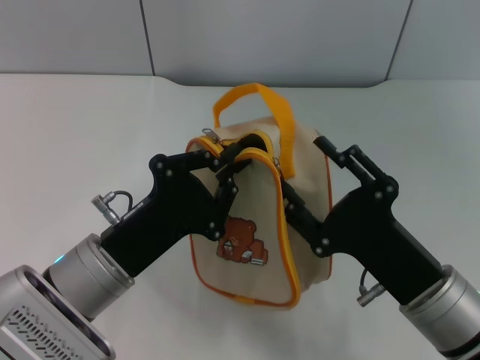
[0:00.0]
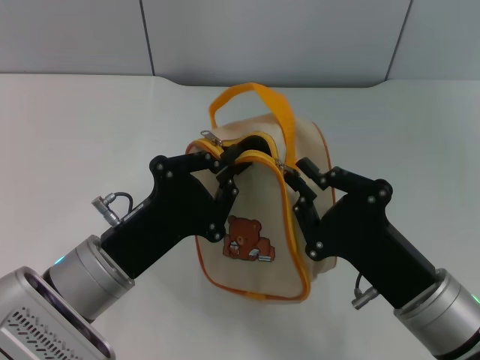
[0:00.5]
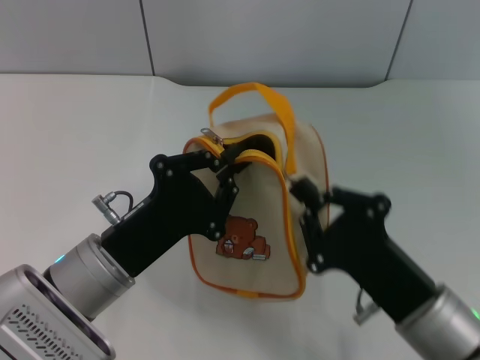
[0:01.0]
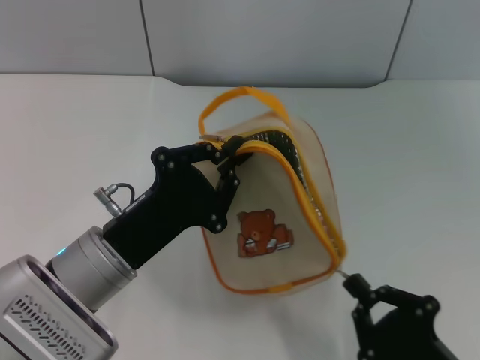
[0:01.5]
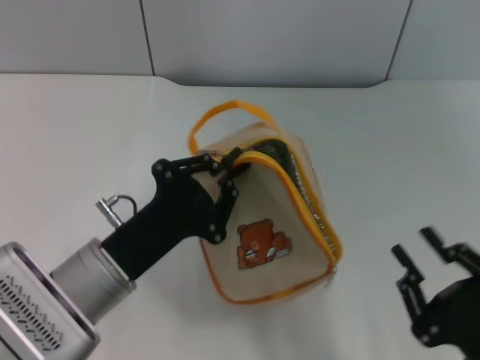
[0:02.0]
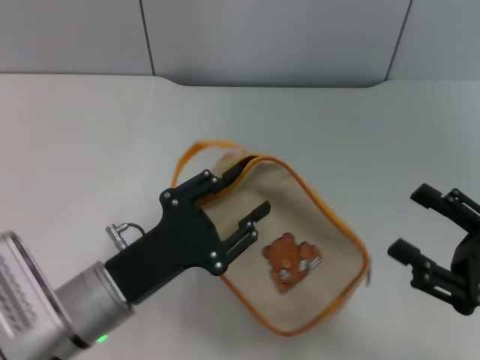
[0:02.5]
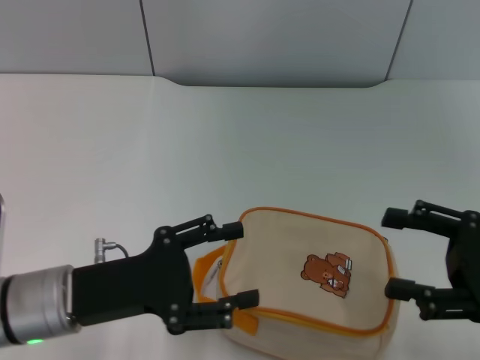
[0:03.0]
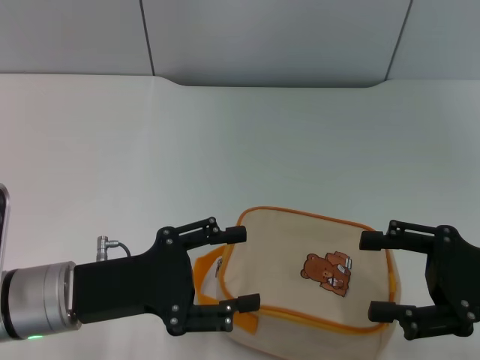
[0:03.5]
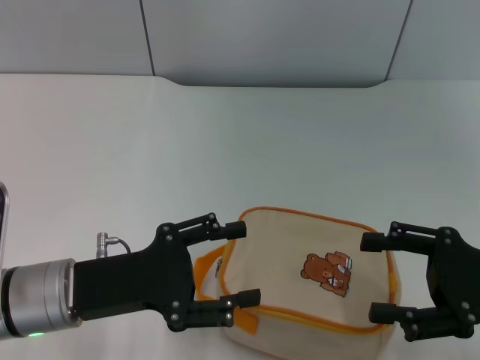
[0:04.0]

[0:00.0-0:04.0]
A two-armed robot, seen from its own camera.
0:00.0 to 0:02.0: The right gripper moves backward and to the right, some 10 cm, and closes its fingers.
0:02.0 to 0:04.0: The right gripper heads forward, upward and to the right, covering about 15 cm, and opens, while the left gripper opens its fingers.

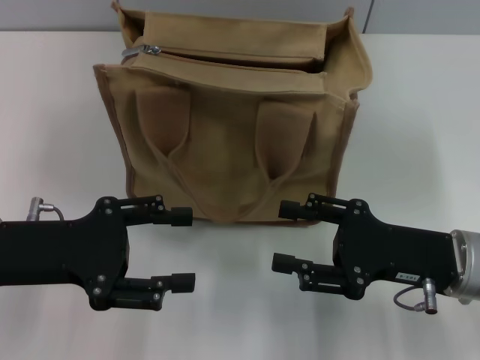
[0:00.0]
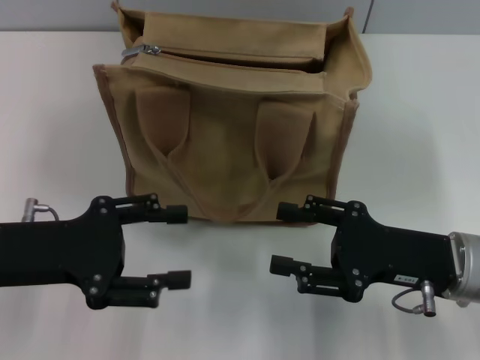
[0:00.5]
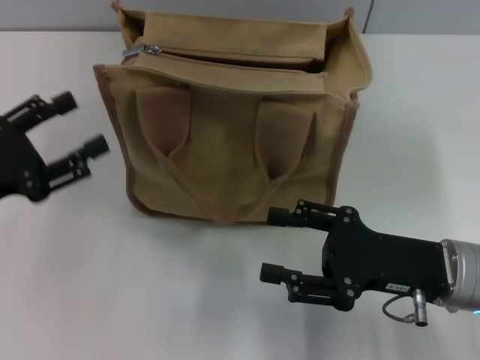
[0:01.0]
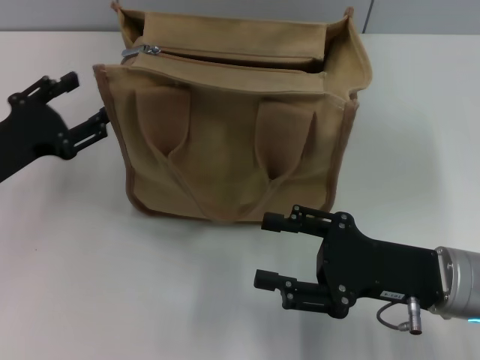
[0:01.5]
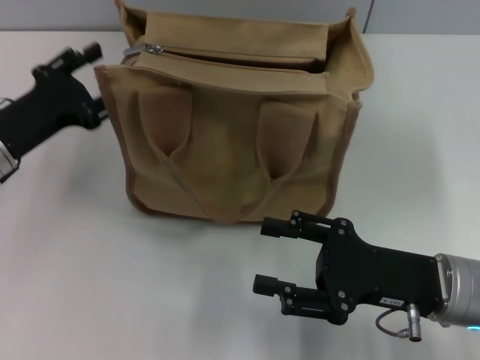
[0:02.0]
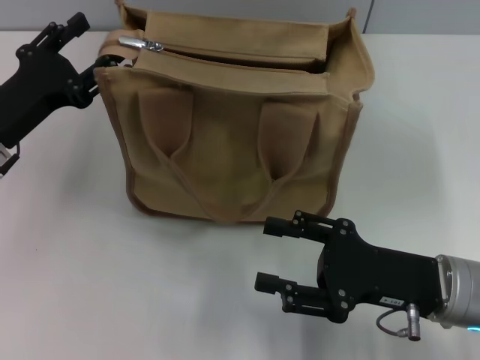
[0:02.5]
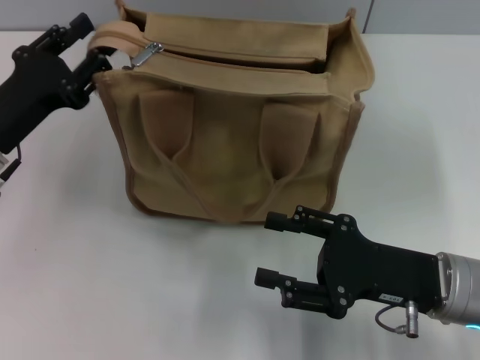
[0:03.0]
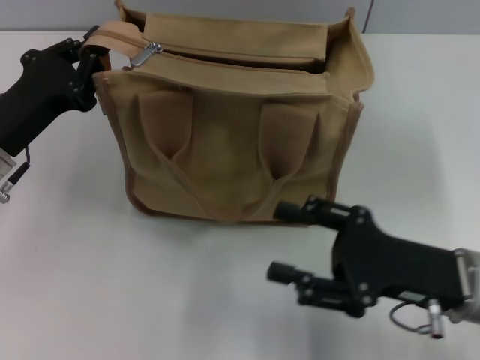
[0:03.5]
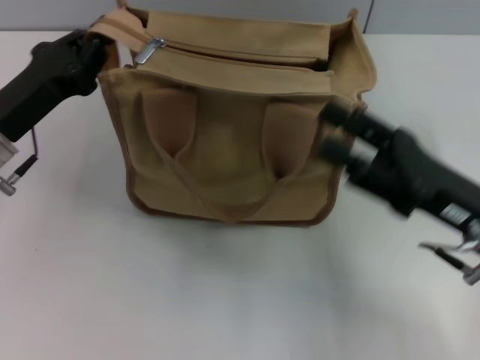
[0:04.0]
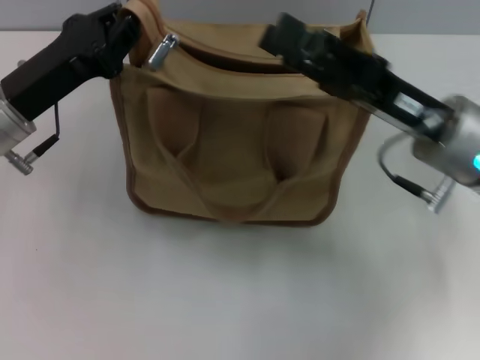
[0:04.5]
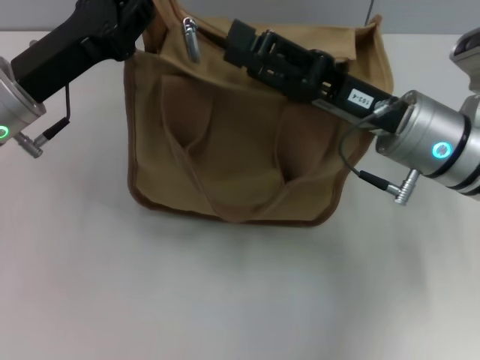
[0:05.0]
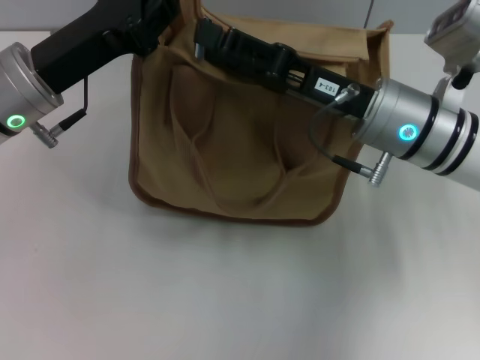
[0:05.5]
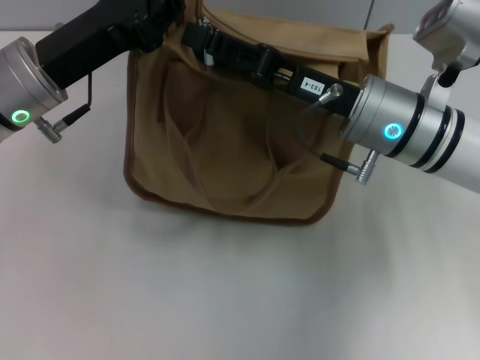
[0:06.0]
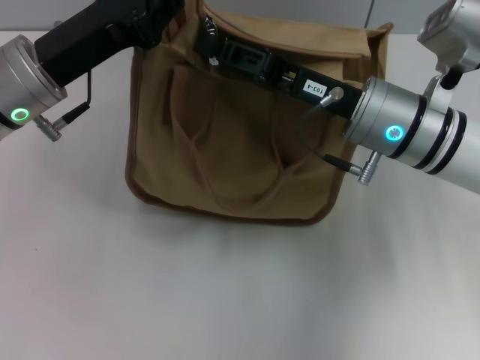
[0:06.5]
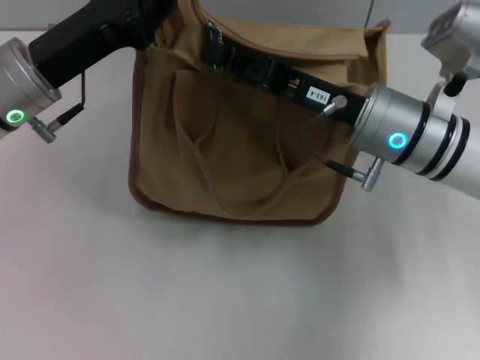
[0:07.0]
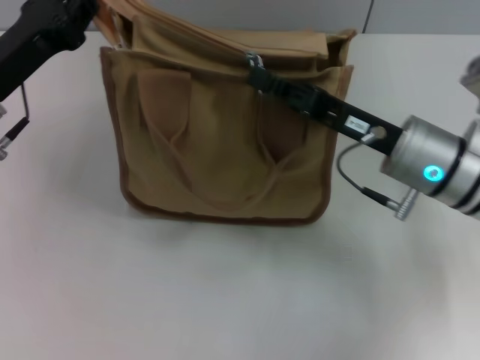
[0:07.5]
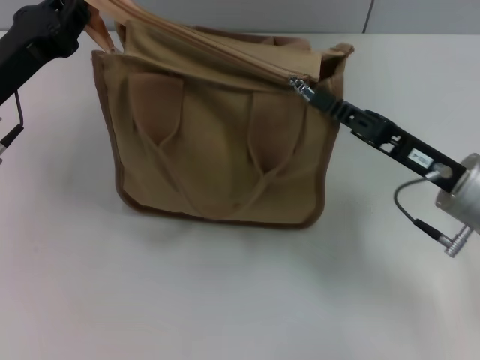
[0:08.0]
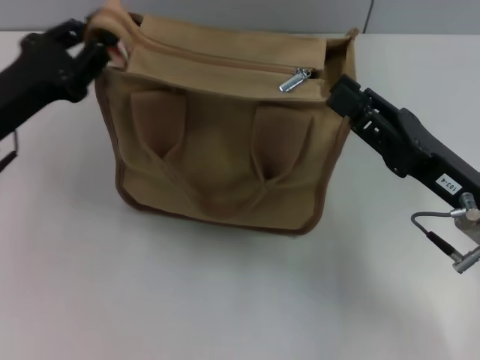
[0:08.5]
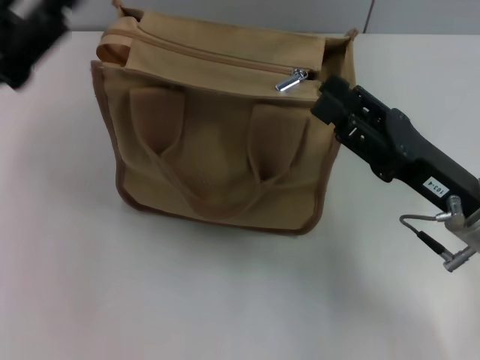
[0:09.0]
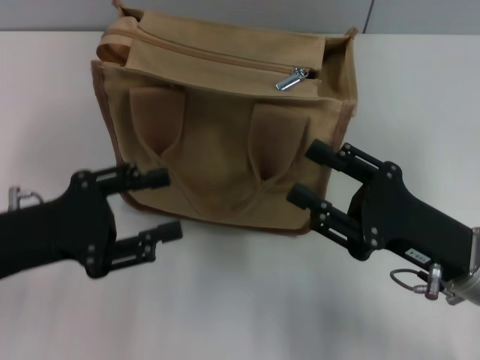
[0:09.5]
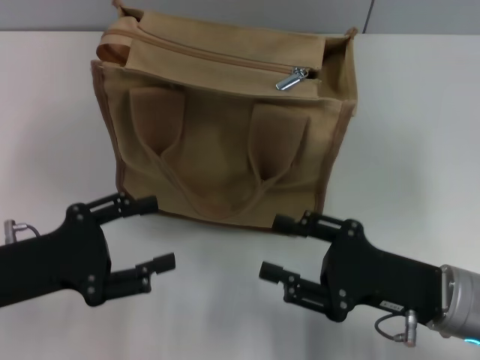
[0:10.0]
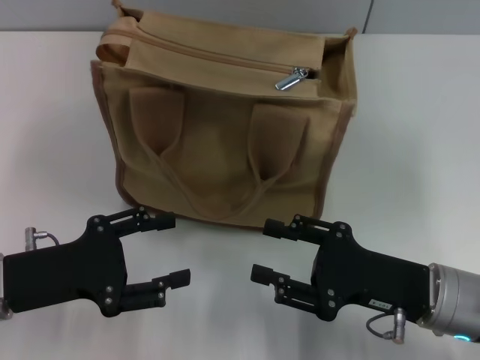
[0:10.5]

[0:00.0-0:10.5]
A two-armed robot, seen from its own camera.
Step, 0:00.0 to 0:08.0: Pull up the zipper with your right hand.
0:00.0 to 0:02.0: The left gripper moves forward, some 5 cm.
0:02.0 to 0:04.0: The left gripper closes its fingers.
0:04.0 to 0:06.5: The left gripper shifts by roughly 10 cm; the right gripper shifts approximately 15 cm forward and to the left, and closes its fingers.
0:06.5 to 0:08.5: The left gripper heads to the left, covering approximately 5 cm; the right gripper moves backward and to the right, roughly 10 cm.
0:08.5 to 0:10.5: The right gripper ends up some 5 cm from where it was, and opens. Meanwhile the left gripper heads backward, covering roughly 10 cm, and opens its fingers.

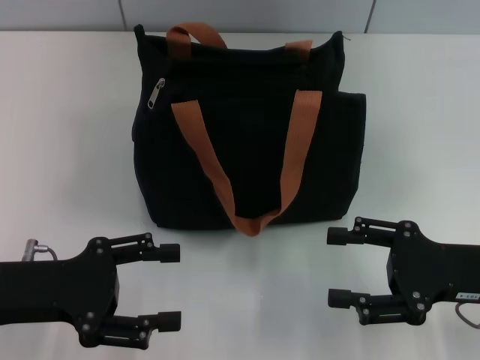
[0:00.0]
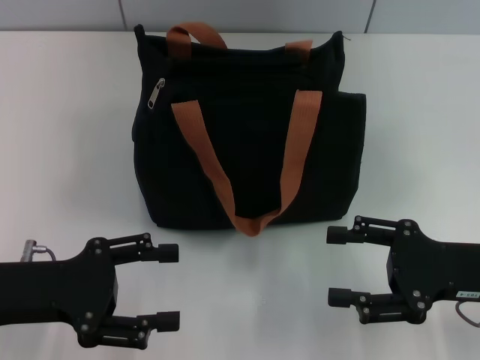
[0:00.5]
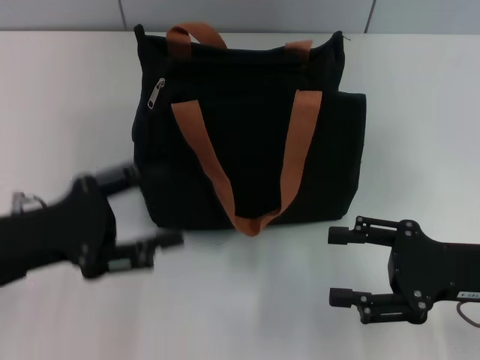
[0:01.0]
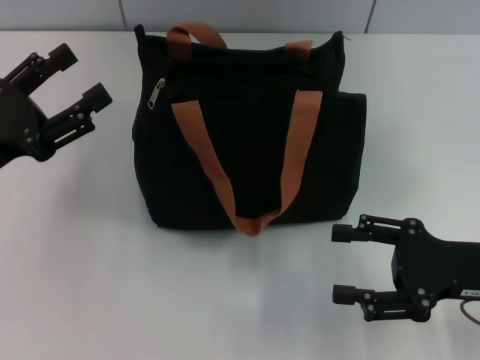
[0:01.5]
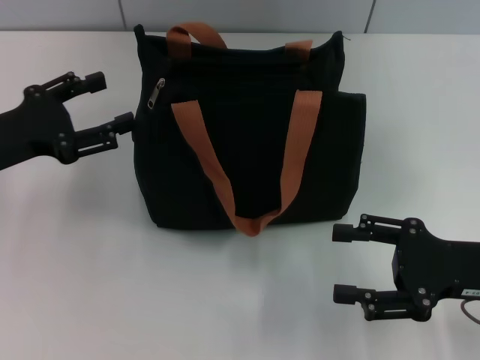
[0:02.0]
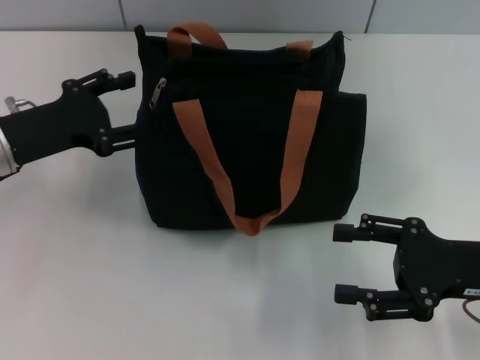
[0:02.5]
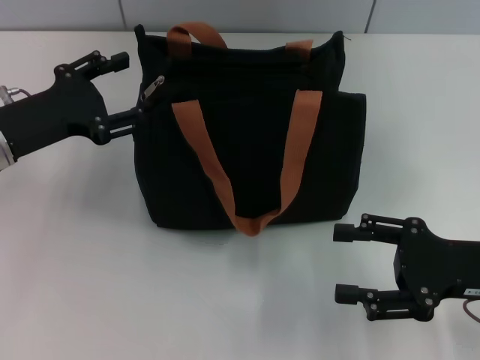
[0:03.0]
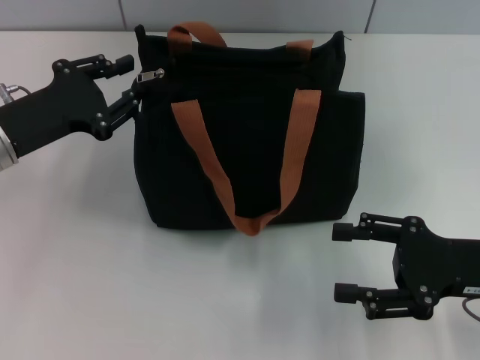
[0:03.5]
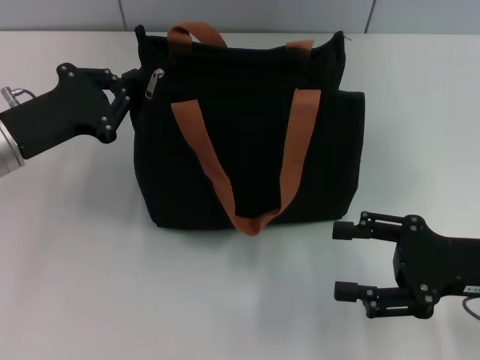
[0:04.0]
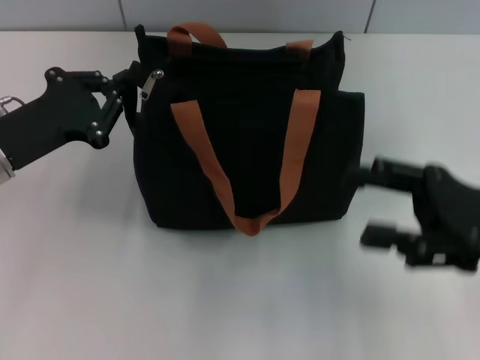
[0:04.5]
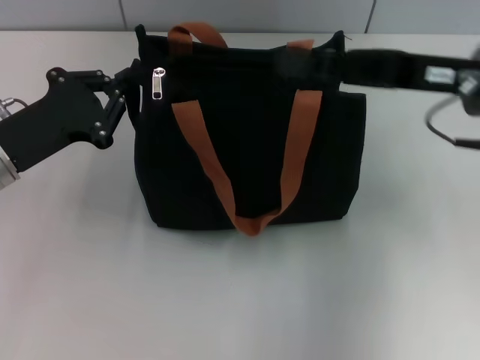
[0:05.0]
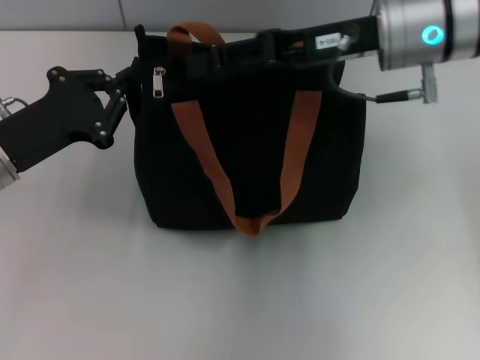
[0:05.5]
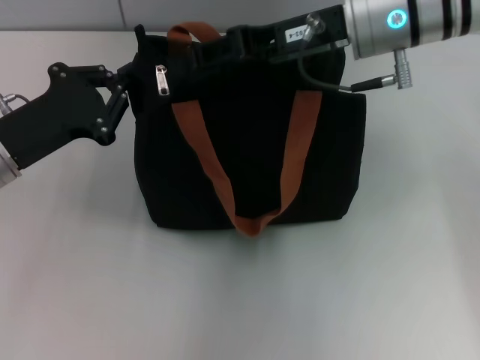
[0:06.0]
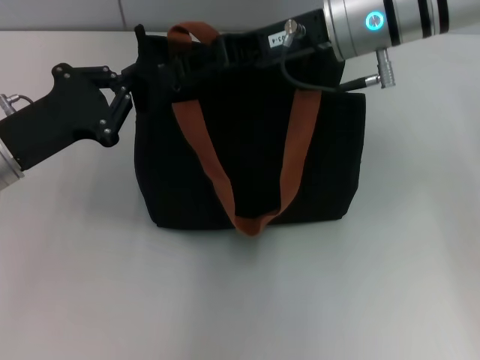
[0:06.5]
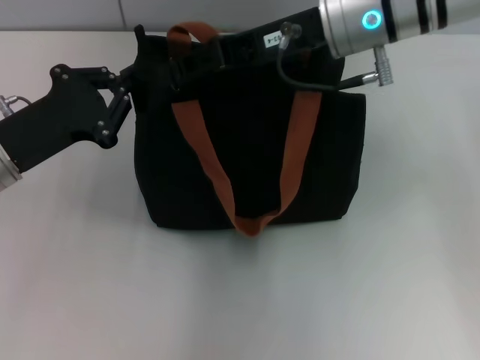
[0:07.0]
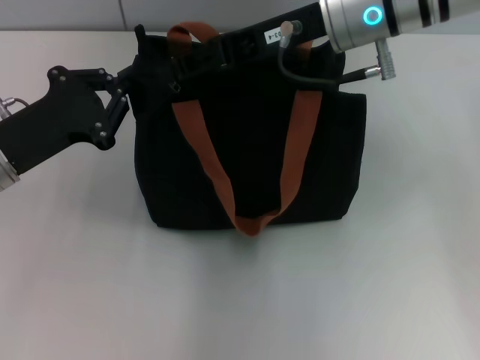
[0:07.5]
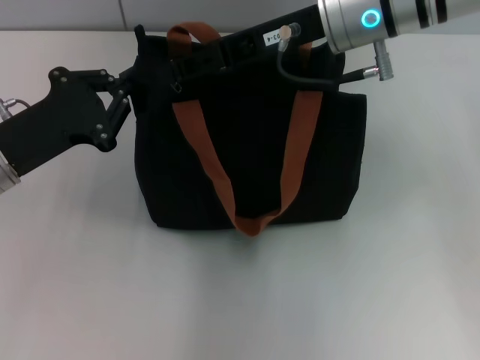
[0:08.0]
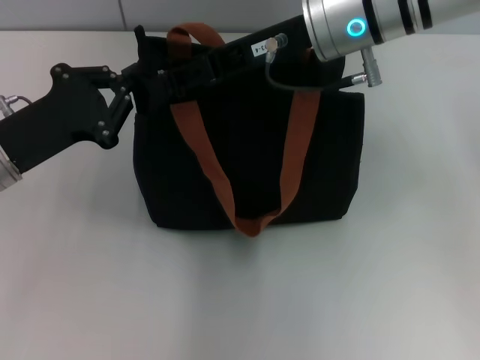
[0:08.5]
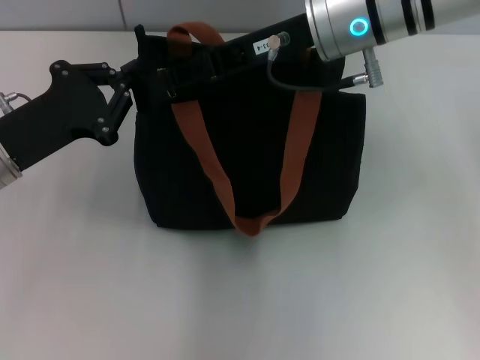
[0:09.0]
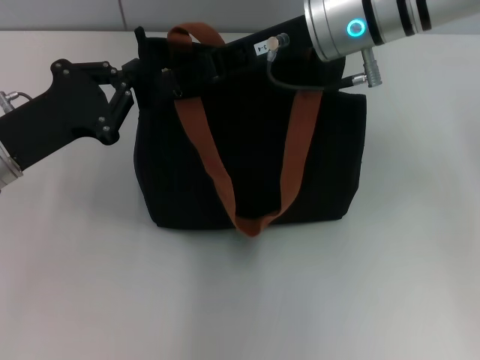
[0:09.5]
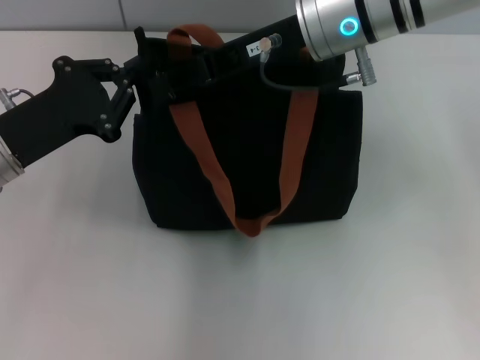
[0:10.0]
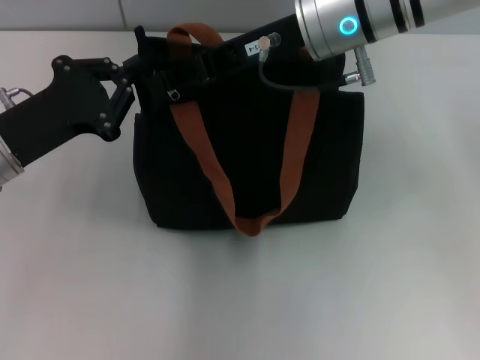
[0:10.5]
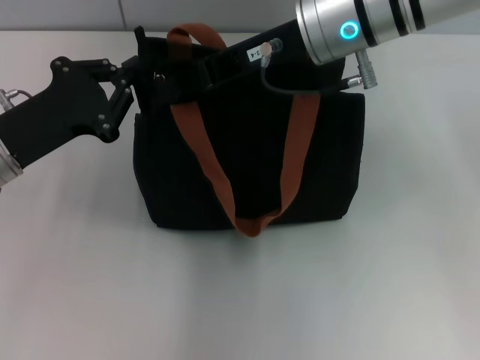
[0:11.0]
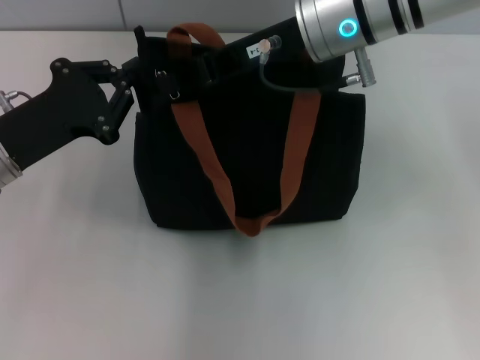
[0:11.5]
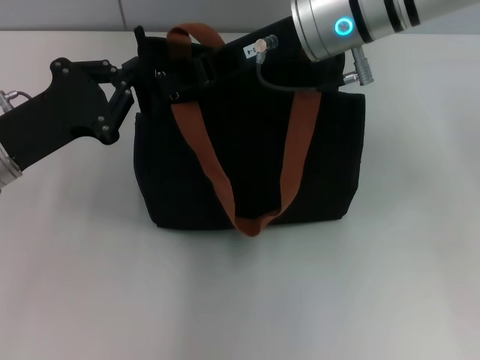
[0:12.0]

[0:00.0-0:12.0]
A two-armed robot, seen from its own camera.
0:00.0 to 0:02.0: The left gripper goes about 5 cm forward.
0:02.0 to 0:04.0: The left gripper changes place by approximately 5 cm, and closes up.
0:04.0 to 0:06.0: The right gripper goes some 25 cm forward, to the left and upward.
0:06.0 to 0:10.0: The grippers stay close to where they were, moving slightly.
0:10.0 to 0:12.0: The right gripper closes its fingers.
